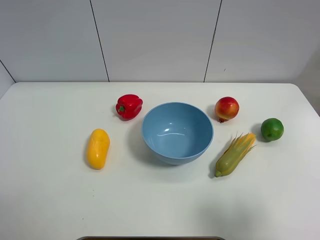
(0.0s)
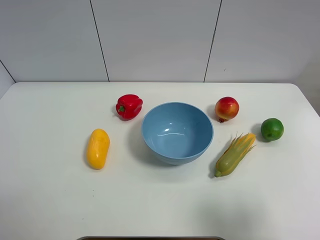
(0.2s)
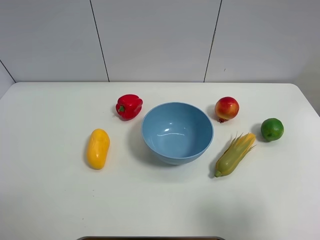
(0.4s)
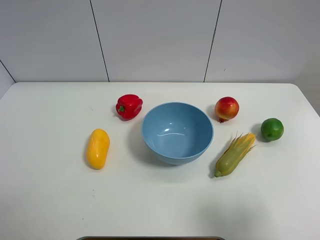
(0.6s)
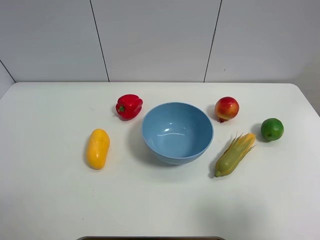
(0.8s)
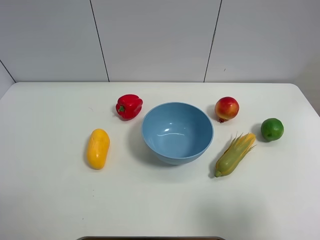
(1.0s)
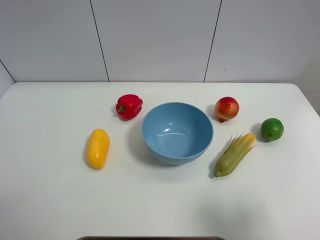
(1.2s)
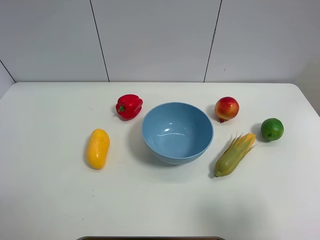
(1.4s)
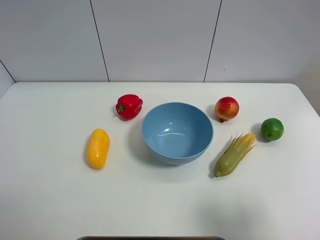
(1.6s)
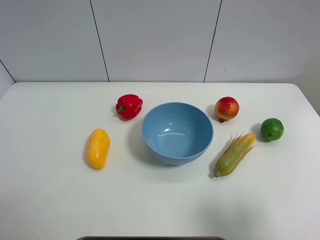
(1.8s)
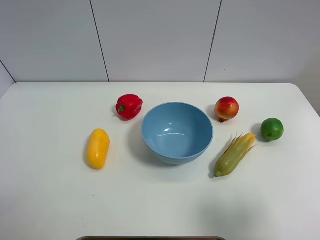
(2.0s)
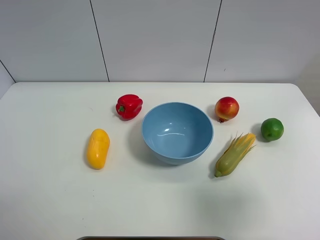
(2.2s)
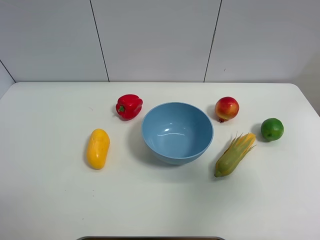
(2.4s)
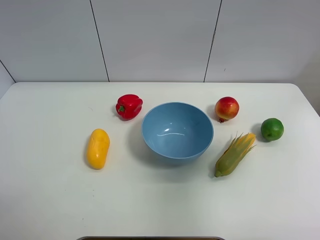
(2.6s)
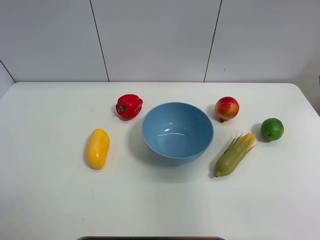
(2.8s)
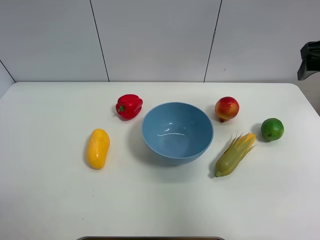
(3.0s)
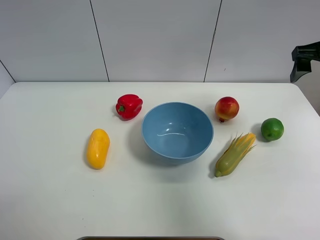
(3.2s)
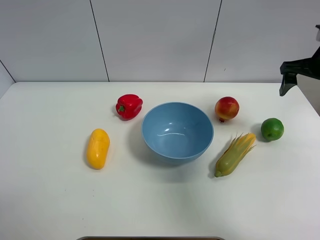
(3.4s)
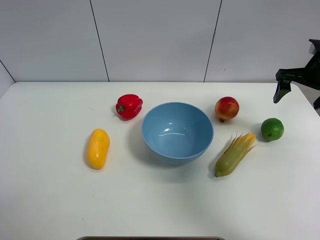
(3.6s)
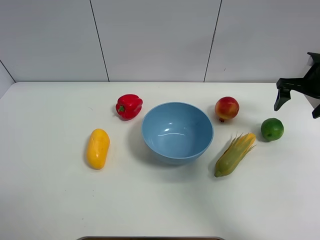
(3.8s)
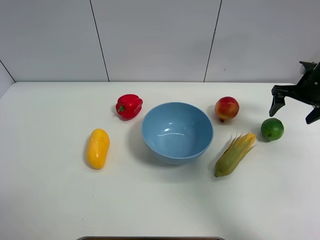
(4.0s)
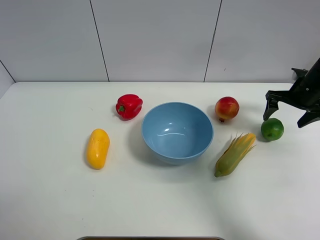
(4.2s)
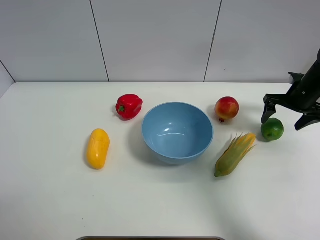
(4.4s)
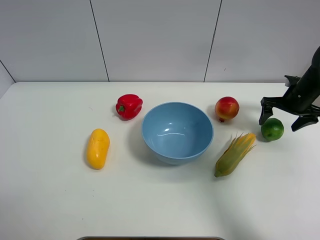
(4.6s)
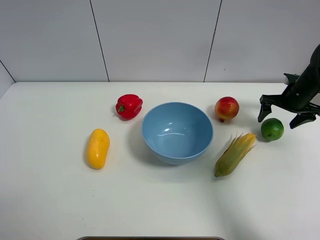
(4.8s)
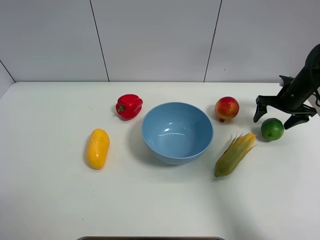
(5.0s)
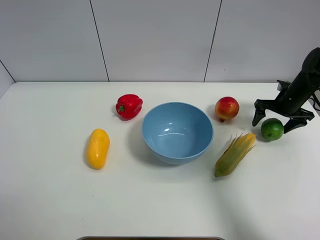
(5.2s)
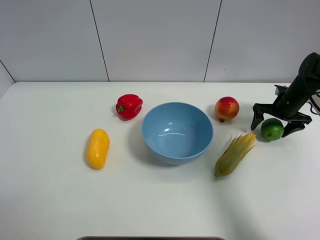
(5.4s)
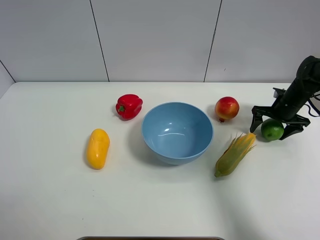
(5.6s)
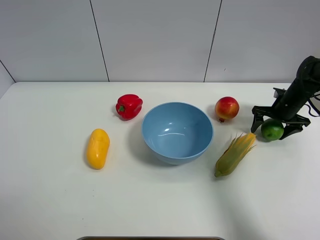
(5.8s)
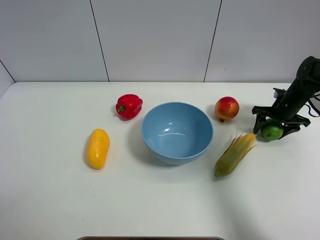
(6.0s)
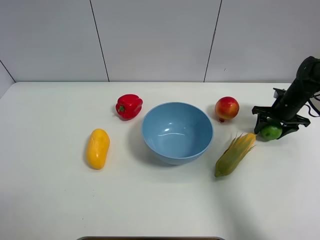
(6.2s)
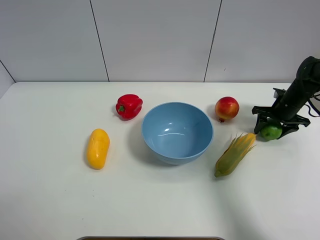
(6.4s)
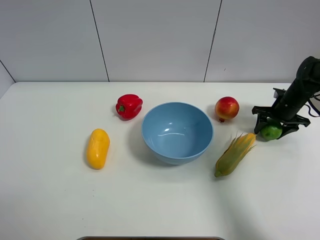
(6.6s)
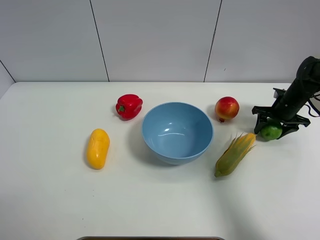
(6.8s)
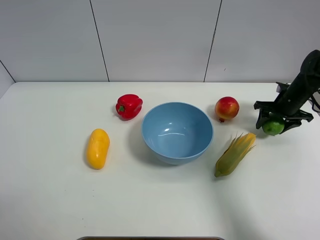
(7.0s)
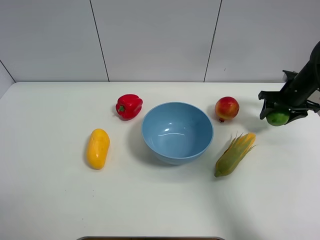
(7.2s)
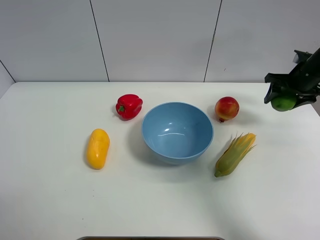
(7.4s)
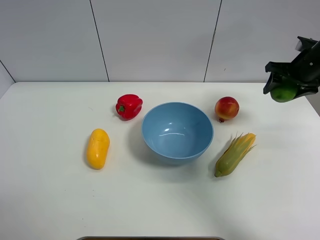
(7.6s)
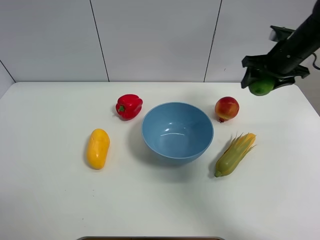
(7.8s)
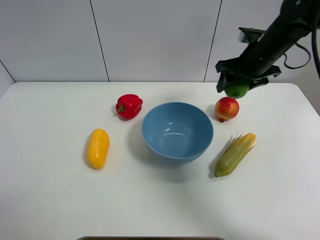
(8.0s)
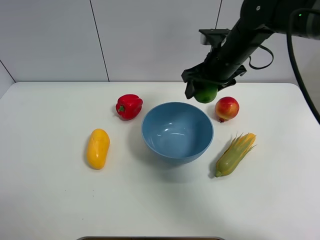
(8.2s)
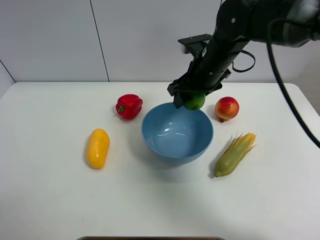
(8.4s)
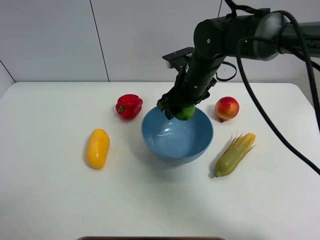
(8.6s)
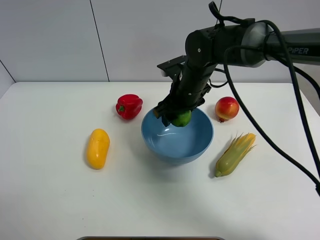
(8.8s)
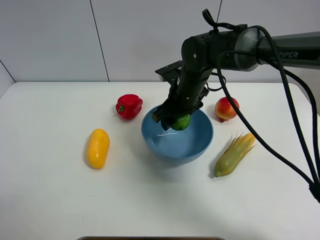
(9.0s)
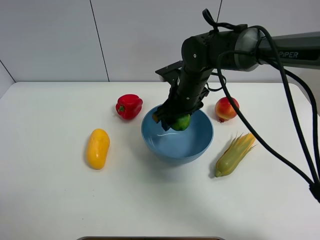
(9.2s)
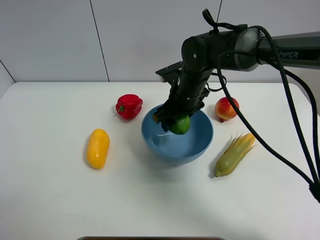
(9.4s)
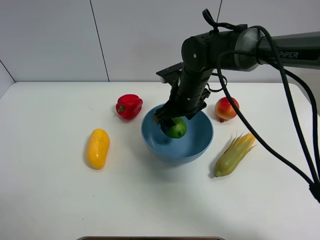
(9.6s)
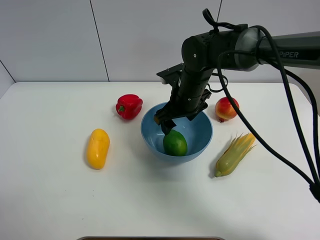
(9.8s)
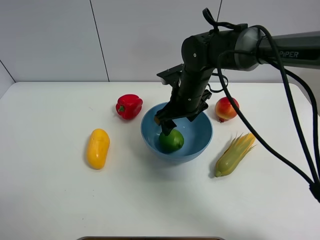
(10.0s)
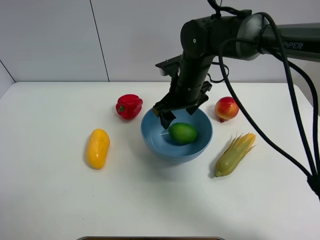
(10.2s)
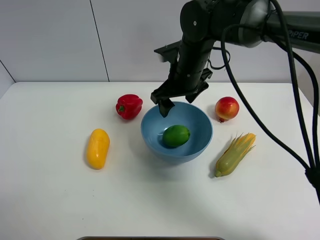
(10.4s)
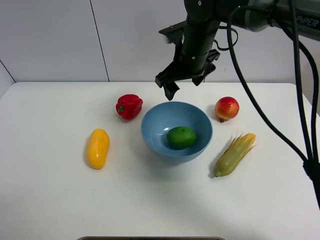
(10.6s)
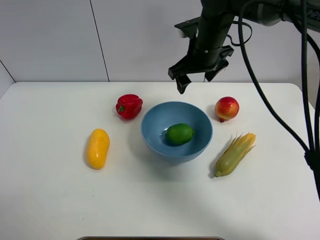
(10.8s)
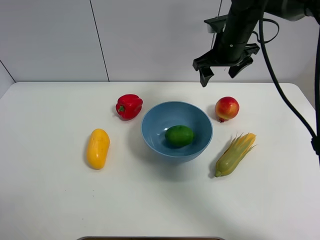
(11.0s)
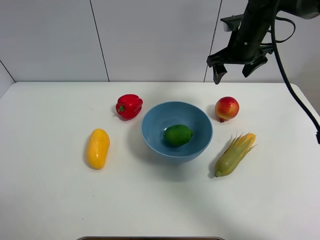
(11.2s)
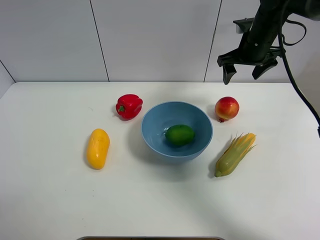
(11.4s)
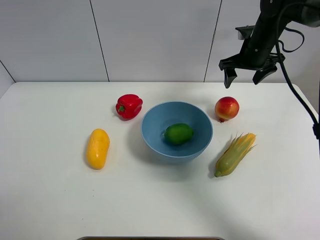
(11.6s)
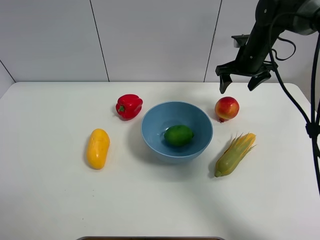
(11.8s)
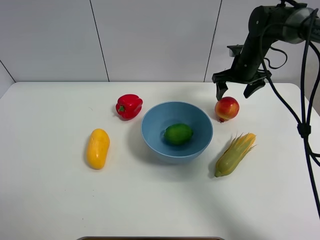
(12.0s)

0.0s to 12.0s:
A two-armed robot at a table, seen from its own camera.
Task of the whole recording: Put the three fruits on the table into a bowl.
Step, 0.0s to 6.0s: Grasp the green lemon with right gripper.
Step, 6.2s to 9.8s: Place the green lemon in the blue bowl with right gripper.
0.0s to 1.6s: Both grippers stay about where they are.
1.6s to 3.0s: The right gripper moves forward, approximately 30 cm.
3.0s to 4.4s: The right gripper moves downward and forward, approximately 20 cm.
4.4s to 6.0s: The right gripper travels downward by approximately 5 cm, and closes its fingers.
6.0s to 7.6s: The right gripper shifts approximately 15 cm upward.
7.6s to 9.0s: The right gripper shifts approximately 30 cm to the left.
9.0s to 10.4s: The right gripper moves upward, roughly 5 cm, and opens its fingers.
10.4s to 12.0s: The right gripper shifts about 20 cm to the right and forward.

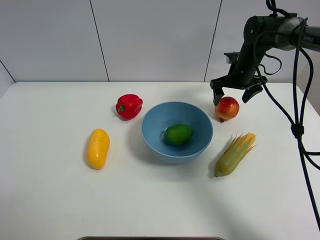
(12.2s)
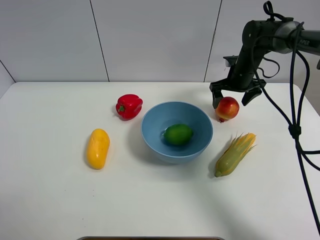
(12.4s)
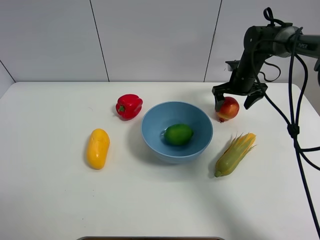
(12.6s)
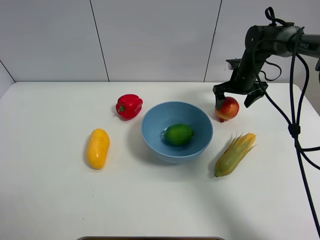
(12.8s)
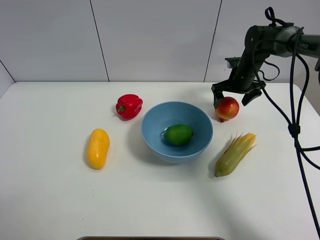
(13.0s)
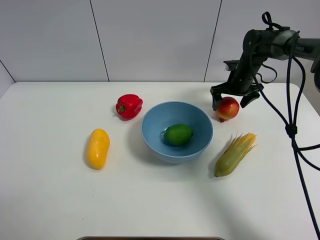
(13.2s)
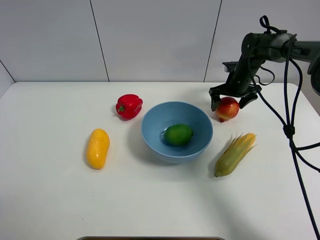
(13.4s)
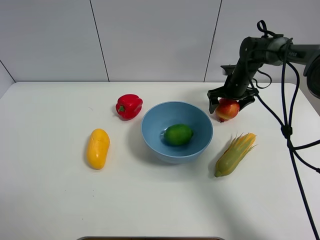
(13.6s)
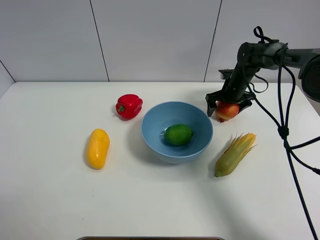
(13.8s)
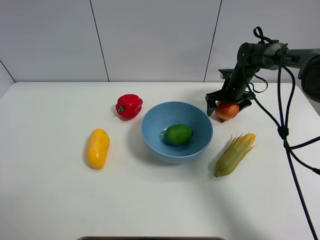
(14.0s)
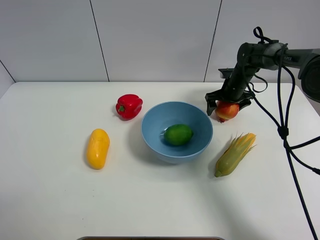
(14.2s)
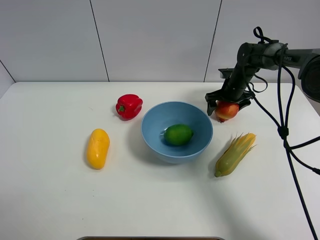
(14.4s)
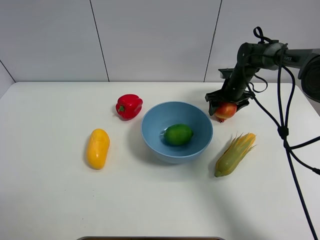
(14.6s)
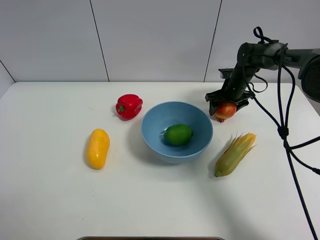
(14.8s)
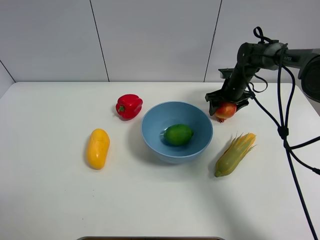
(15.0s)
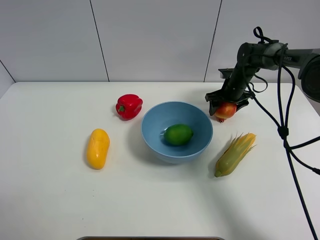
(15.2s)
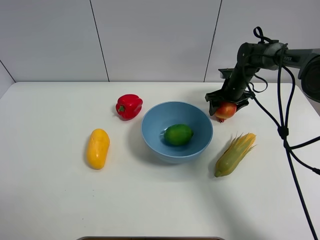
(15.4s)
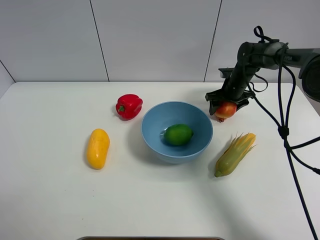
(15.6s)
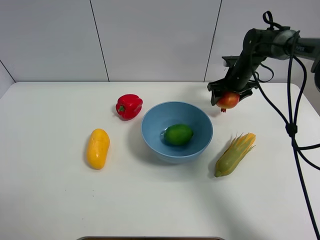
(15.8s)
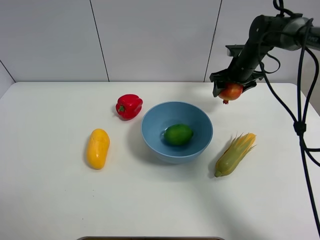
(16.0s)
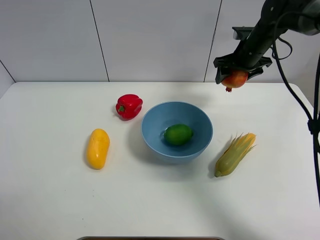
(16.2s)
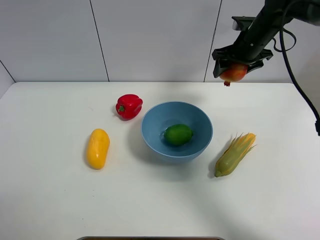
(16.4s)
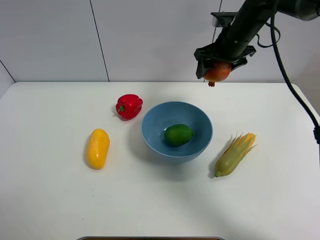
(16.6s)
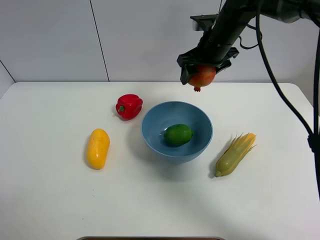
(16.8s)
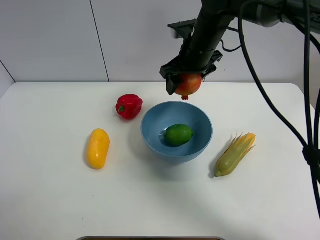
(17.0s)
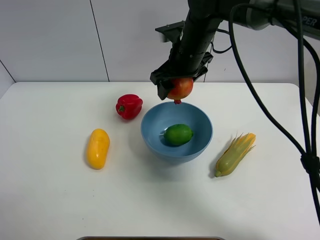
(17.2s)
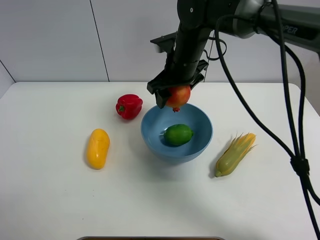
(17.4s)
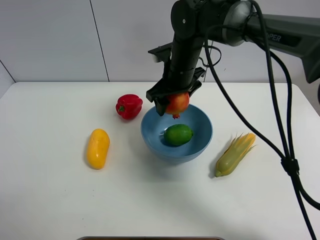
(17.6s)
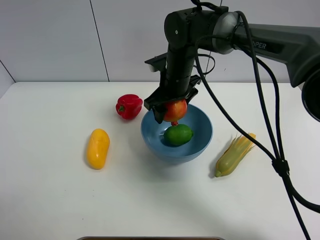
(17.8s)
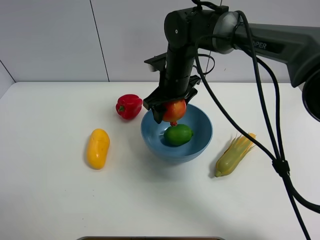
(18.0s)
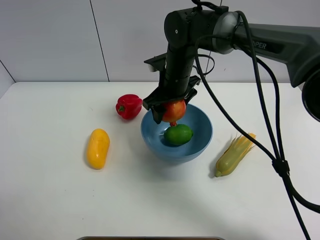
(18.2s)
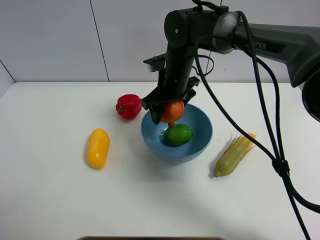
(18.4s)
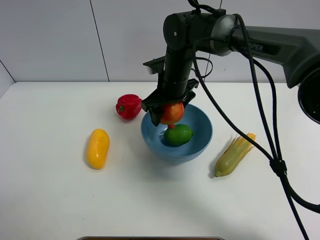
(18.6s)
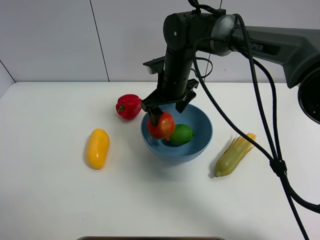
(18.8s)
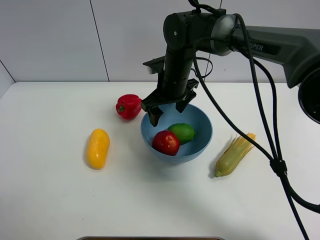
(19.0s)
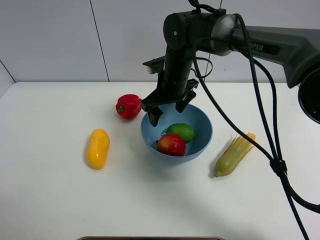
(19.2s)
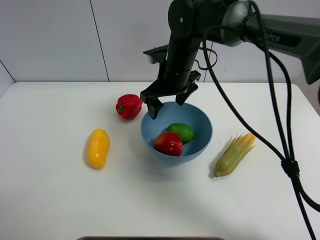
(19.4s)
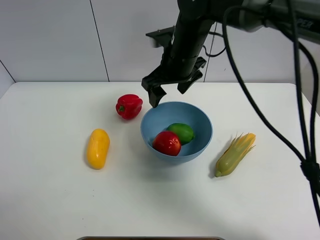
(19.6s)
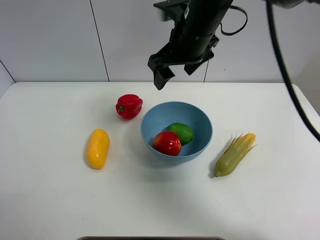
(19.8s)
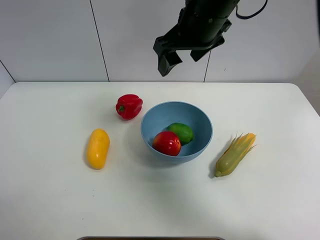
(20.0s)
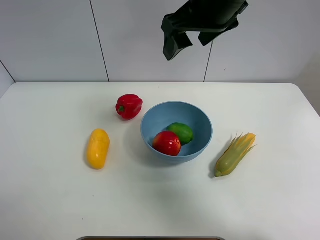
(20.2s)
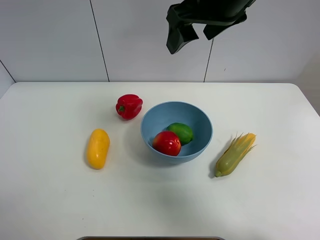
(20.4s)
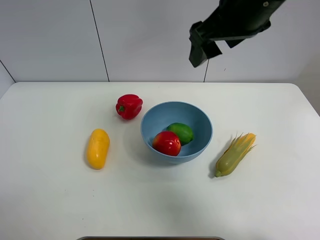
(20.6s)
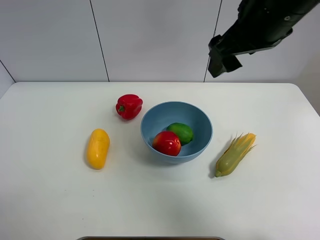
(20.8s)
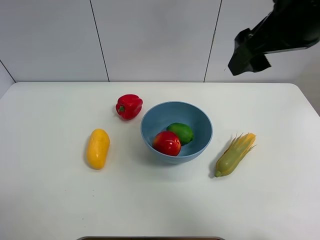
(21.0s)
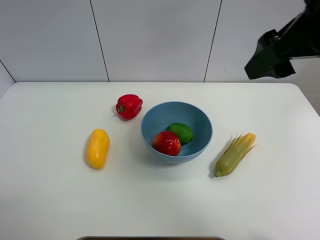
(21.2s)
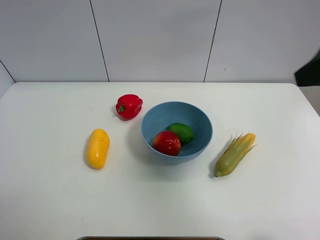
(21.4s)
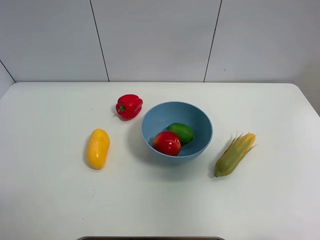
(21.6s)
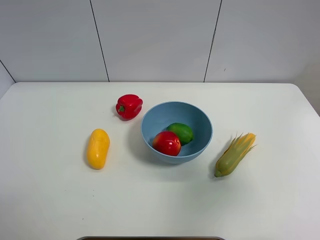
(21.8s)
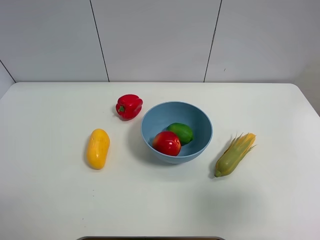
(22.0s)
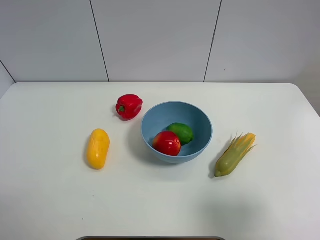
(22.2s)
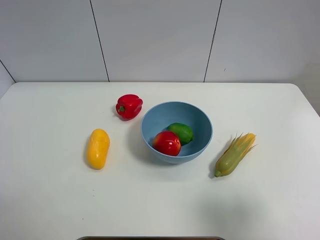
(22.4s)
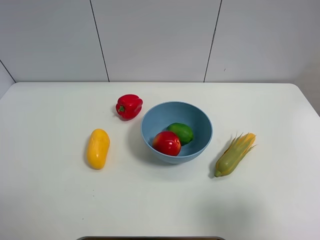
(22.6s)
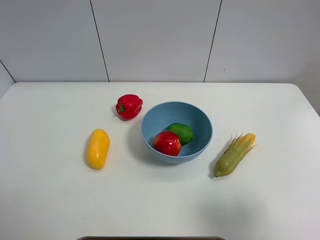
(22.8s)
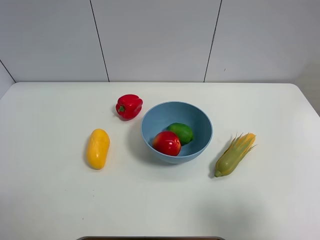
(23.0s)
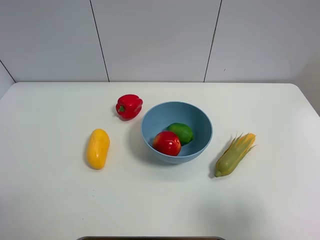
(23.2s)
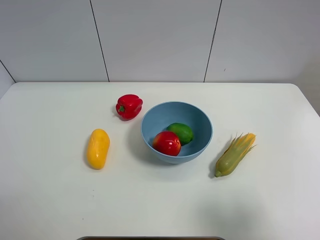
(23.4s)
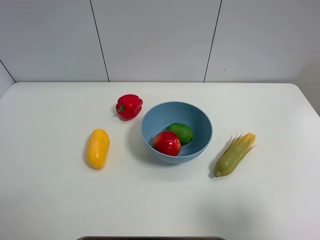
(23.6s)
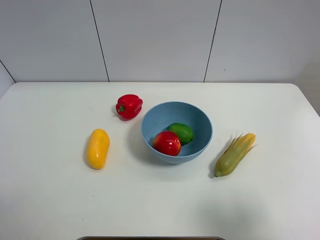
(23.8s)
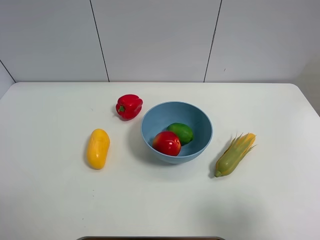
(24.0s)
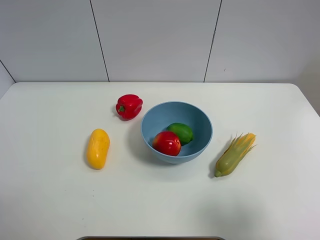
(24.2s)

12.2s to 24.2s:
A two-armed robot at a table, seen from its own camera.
Task of the whole recording: Put the three fruits on the table into a bowl.
Step, 12.2s to 14.8s: Grasp the pomegranate with right gripper.
Step, 15.0s to 19.0s: Place the pomegranate in the blue bowl with right gripper.
12.2s to 13.8s: The right gripper travels downward by some 5 cm.
13.8s to 15.2s: The right gripper closes up.
15.2s to 16.6s: The right gripper is displaced upward and to the left by some 20 cm.
16.6s to 18.2s: The right gripper heads to the left, downward and backward, covering some 15 cm.
18.2s to 19.8s: The right gripper moves upward, approximately 10 cm.
19.8s to 21.2s: The right gripper heads backward, to the right and upward, covering about 20 cm.
21.2s to 22.6s: The right gripper moves backward, downward and to the right, roughly 25 cm.
